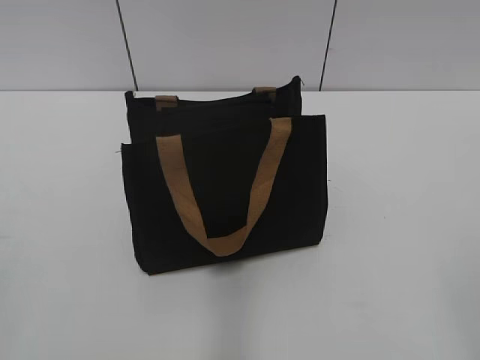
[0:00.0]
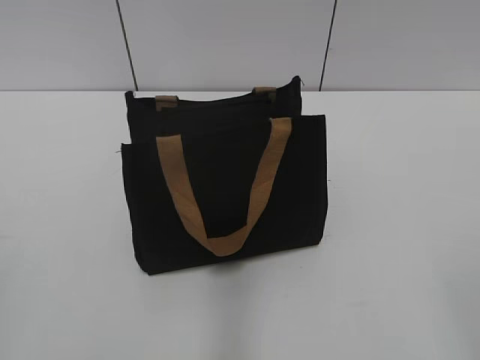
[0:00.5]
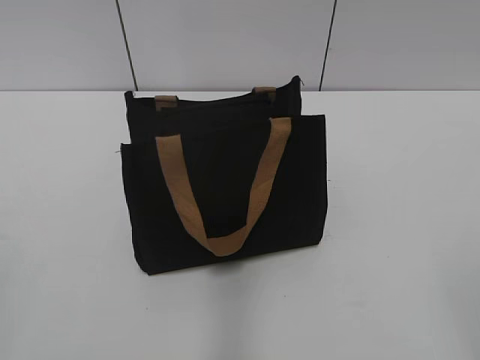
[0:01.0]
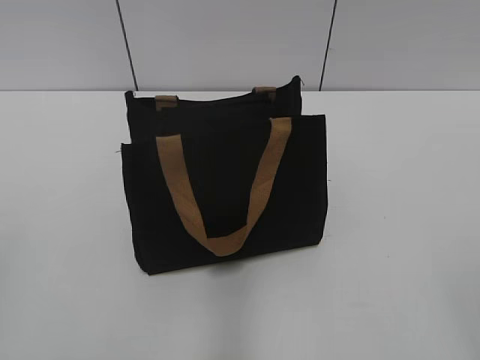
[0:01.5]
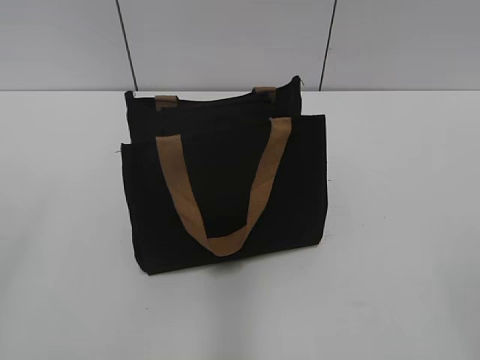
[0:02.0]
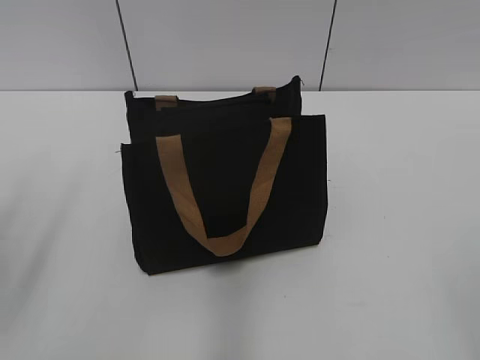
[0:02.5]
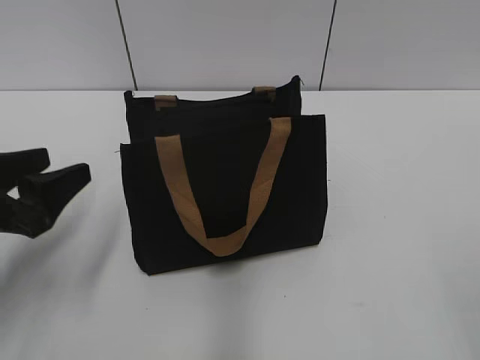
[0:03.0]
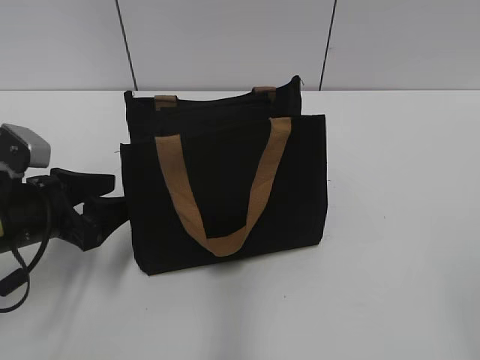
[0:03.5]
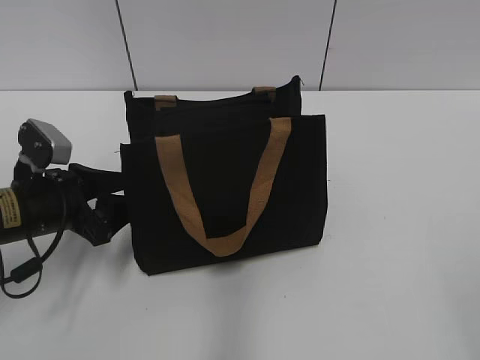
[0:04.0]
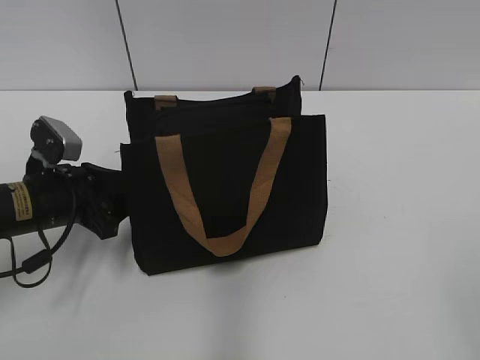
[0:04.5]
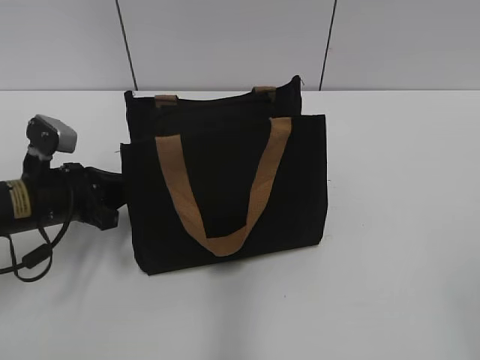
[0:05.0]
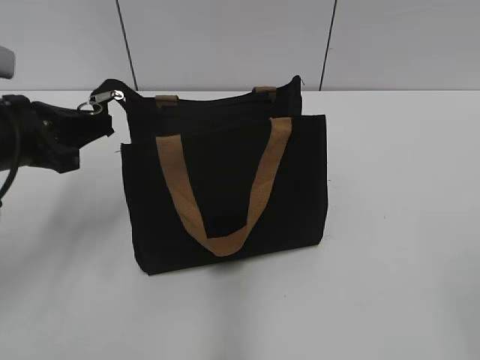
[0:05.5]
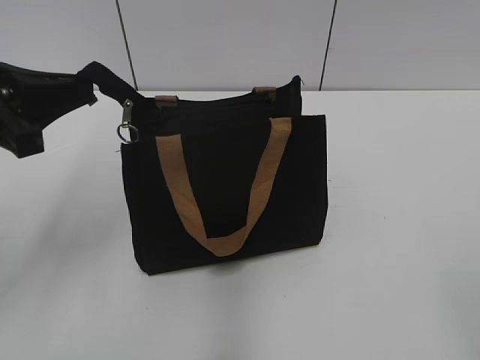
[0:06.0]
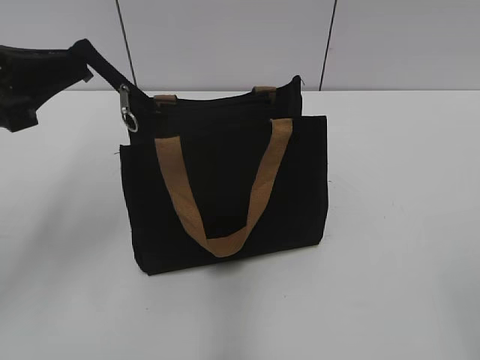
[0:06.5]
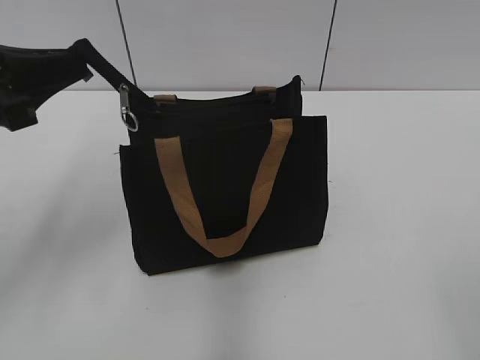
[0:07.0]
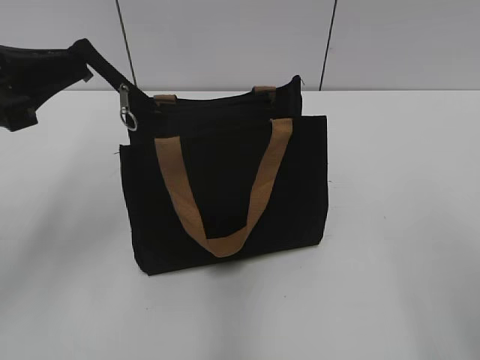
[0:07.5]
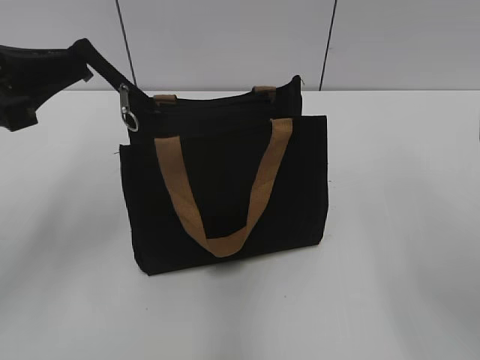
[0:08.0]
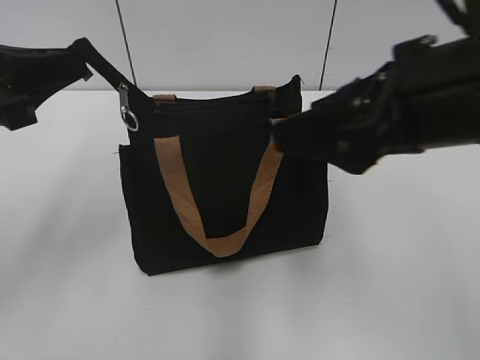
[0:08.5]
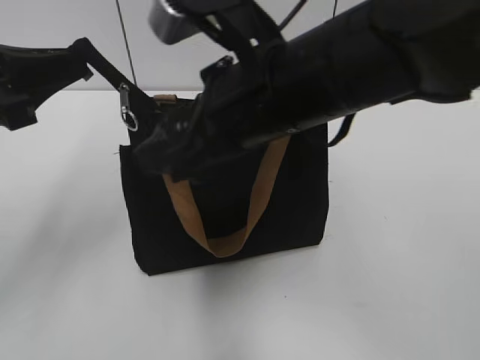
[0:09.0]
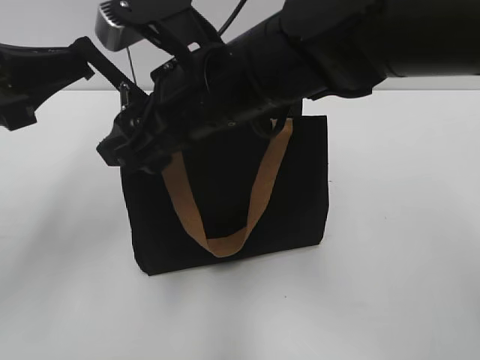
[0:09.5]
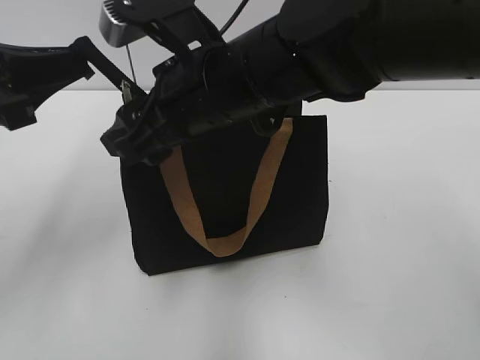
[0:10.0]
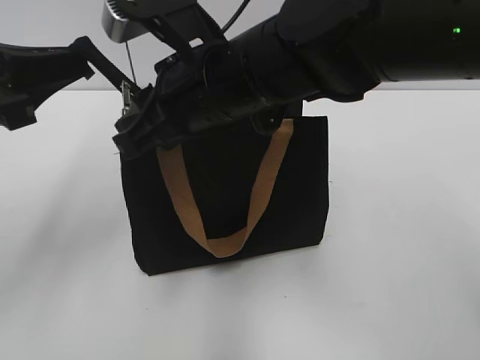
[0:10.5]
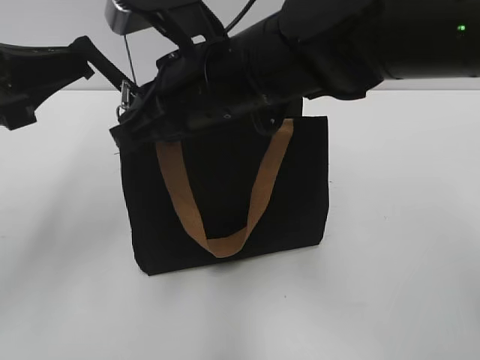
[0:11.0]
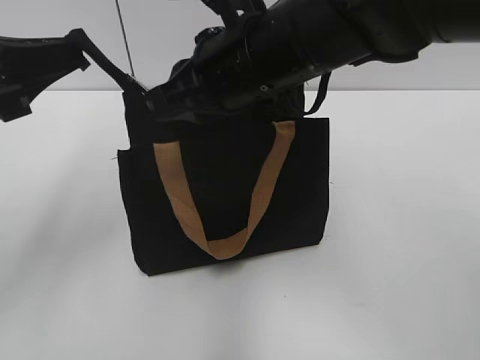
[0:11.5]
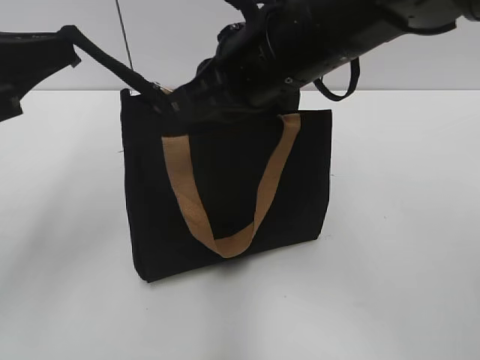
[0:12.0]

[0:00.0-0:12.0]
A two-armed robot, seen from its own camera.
0:02.0 to 0:04.0: The left gripper travels forward and downward by about 35 cm.
0:04.0 to 0:06.0: The left gripper travels upward by about 15 cm, and closes its fingers.
0:08.0 to 0:10.0: The right gripper heads to the left and forward, covering roughly 30 cm.
0:10.0 to 0:12.0: The right gripper changes place by roughly 5 cm, and closes up.

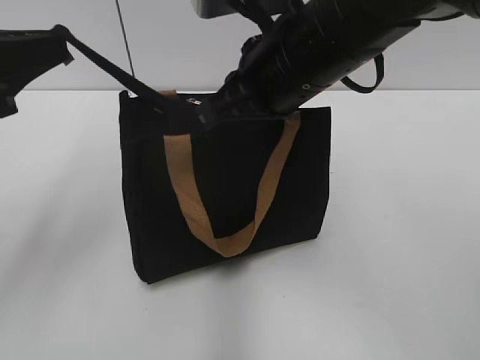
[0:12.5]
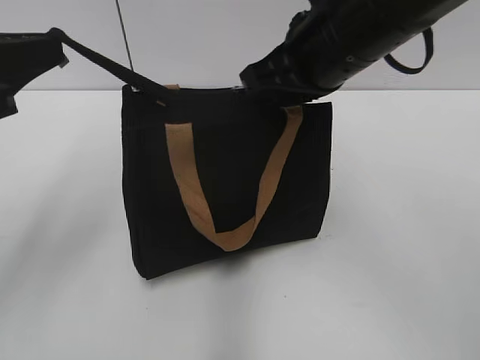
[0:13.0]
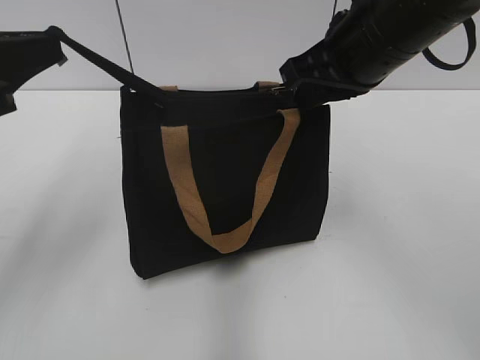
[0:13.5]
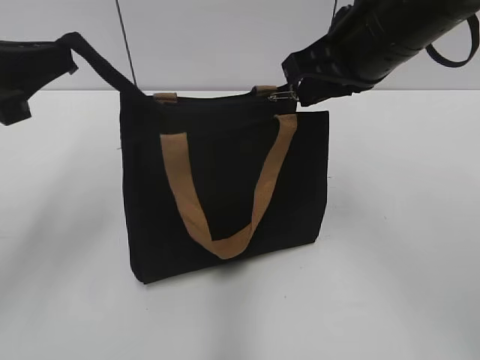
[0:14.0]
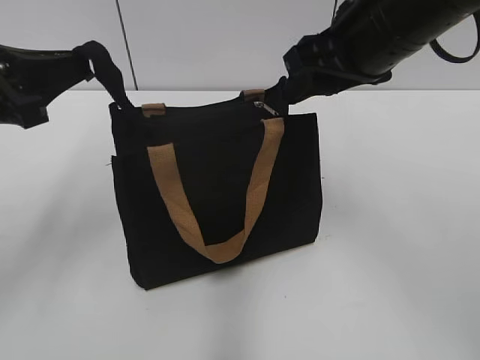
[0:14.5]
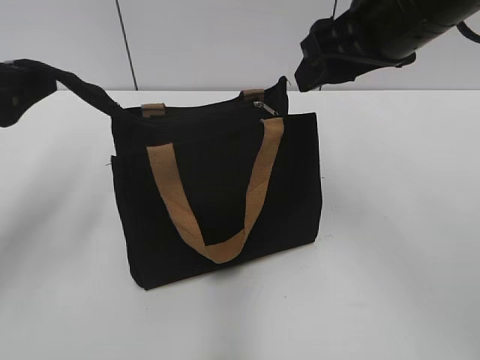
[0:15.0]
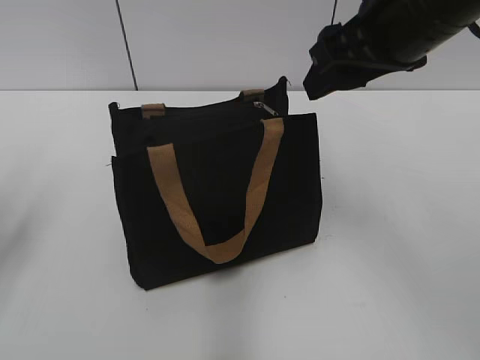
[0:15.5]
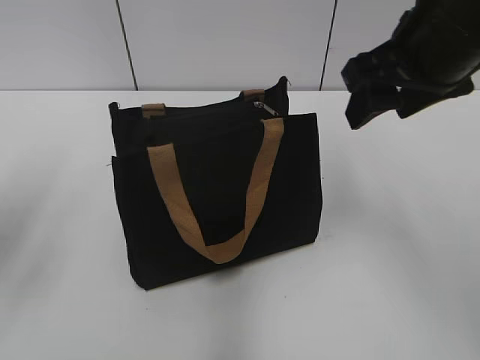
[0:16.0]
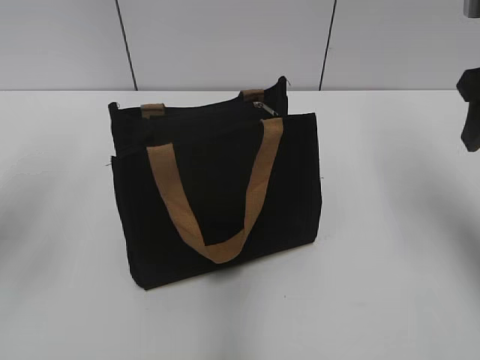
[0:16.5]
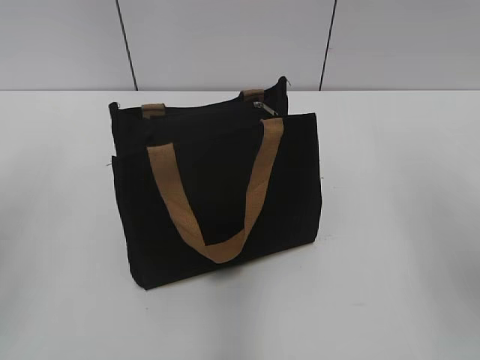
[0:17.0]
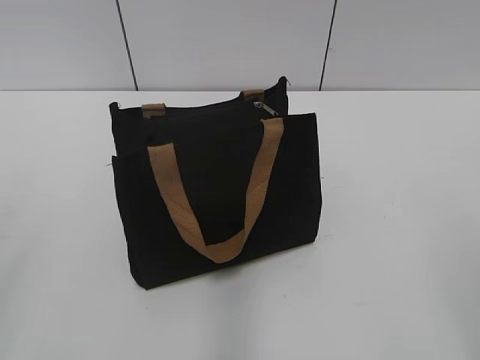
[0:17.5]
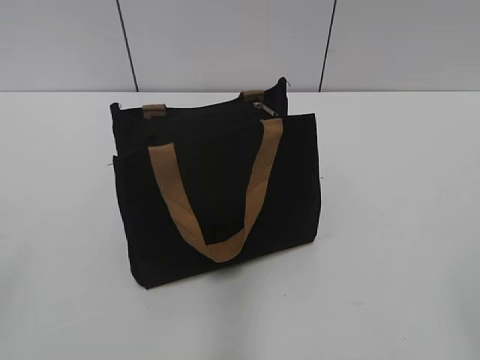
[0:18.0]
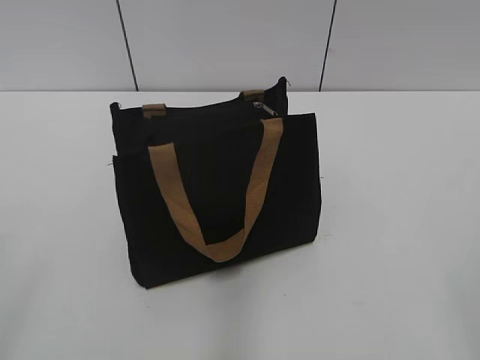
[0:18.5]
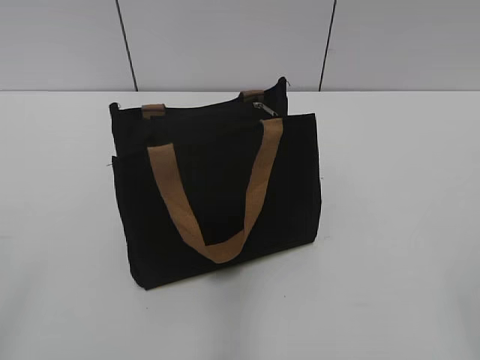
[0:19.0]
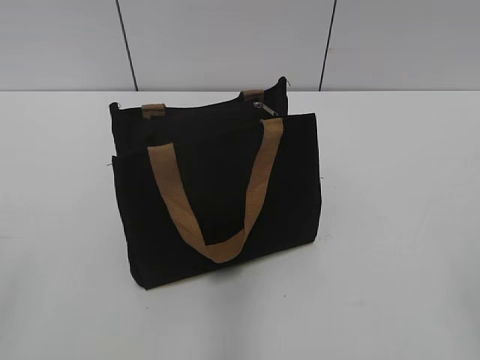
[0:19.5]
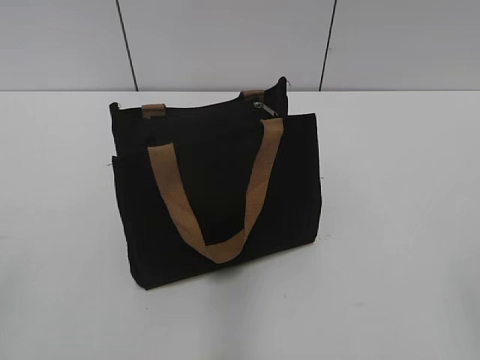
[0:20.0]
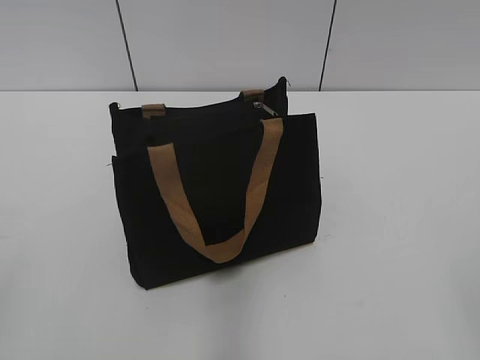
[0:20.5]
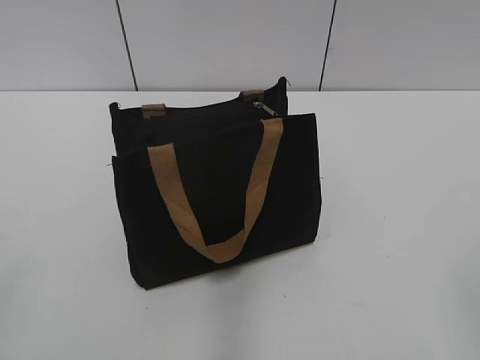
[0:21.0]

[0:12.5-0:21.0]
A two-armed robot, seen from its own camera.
Step, 0:14.5 to 0:15.0: Grab the zipper with your left hand.
0:12.5 to 0:14.5: The right gripper moves to the right, approximately 5 cm, and opens.
0:14.5 to 0:16.5: The right gripper goes some 10 cm to the right; the left gripper ends up about 5 cm from where it was, and opens.
0:16.5 to 0:19.0: The two grippers go roughly 25 cm backward.

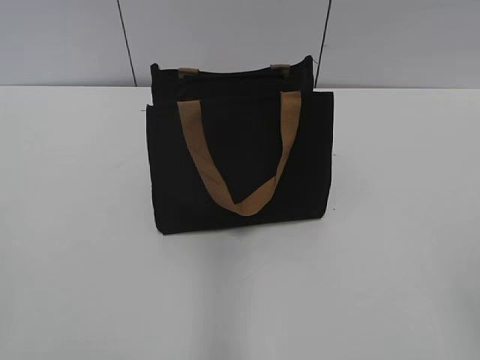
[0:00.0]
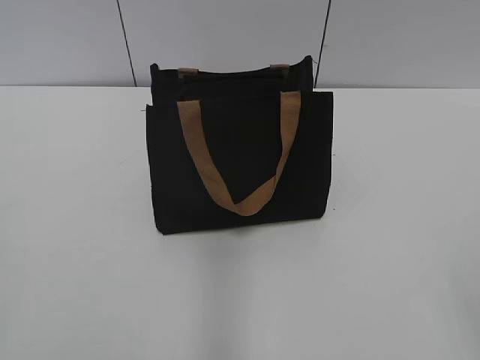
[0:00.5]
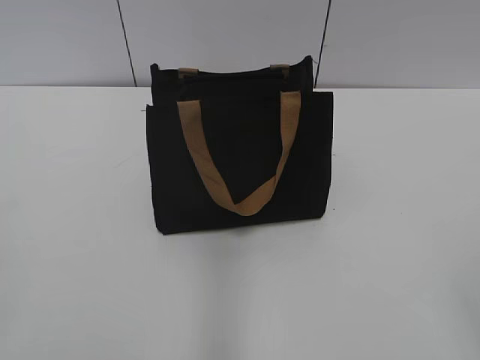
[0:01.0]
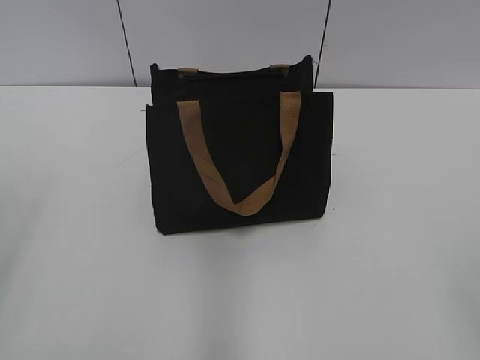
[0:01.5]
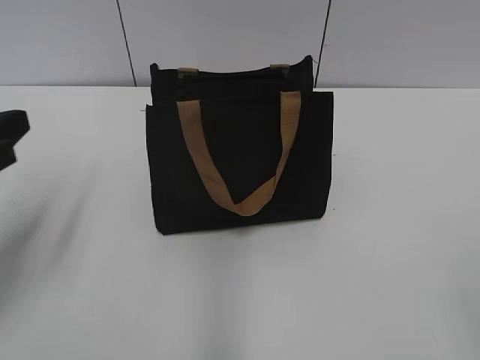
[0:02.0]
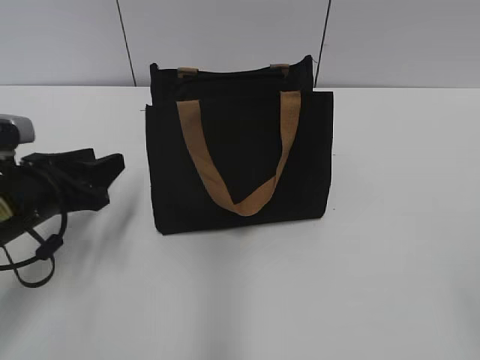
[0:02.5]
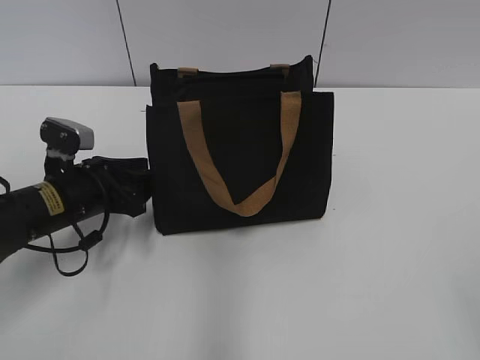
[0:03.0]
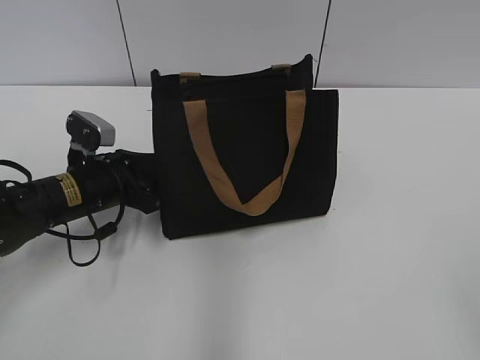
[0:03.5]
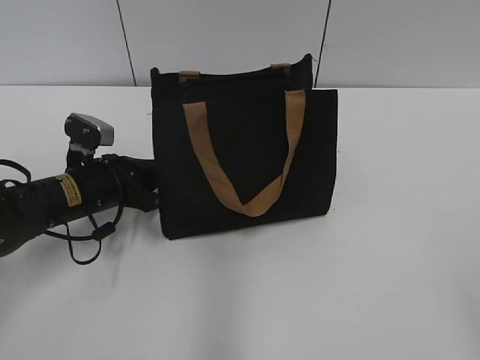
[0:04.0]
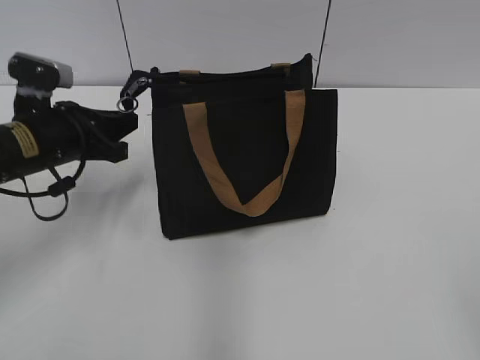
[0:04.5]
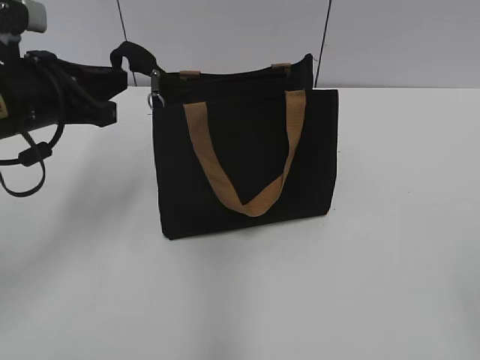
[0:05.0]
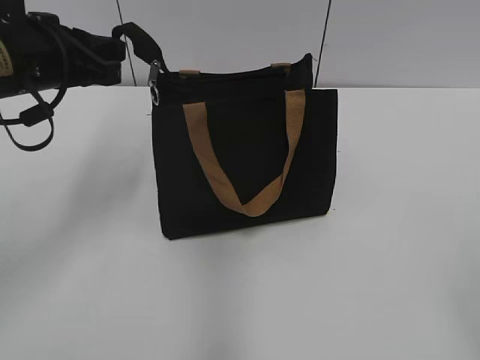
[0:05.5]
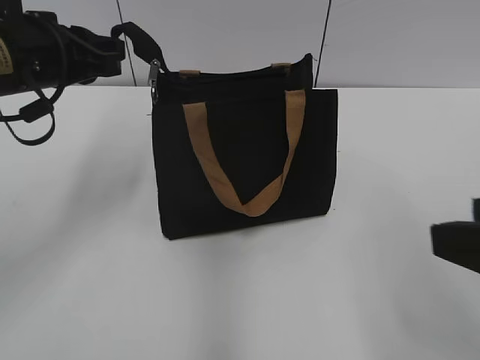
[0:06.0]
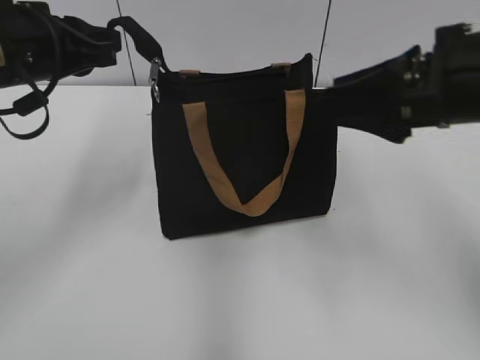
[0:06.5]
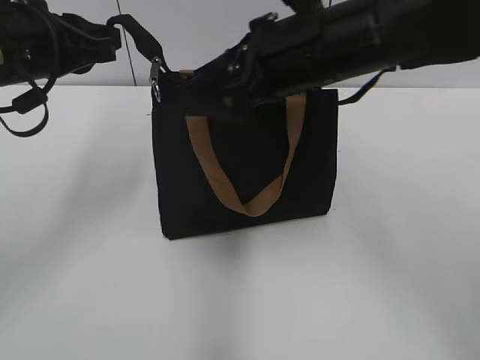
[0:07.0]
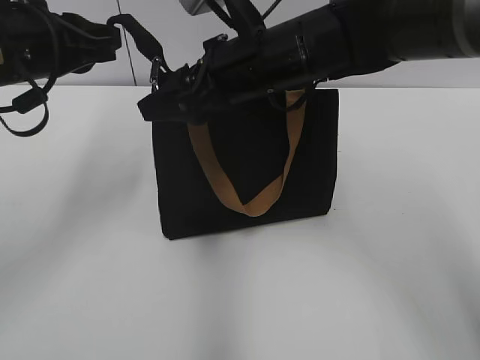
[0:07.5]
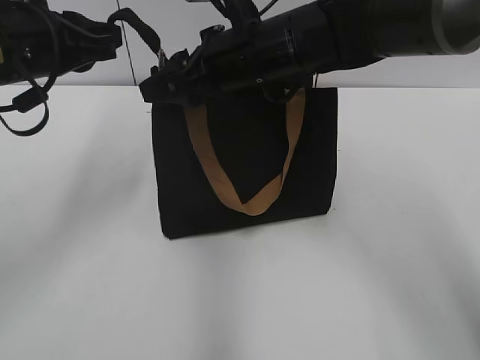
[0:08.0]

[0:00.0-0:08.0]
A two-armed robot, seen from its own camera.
0:02.0 to 0:04.0: The left gripper heads downward, forward and to the right, covering approximately 25 cm, and closes.
0:04.0 to 0:06.0: The right gripper shifts approximately 10 cm forward; the left gripper is displaced upward by some 20 cm.
0:06.0 to 0:08.0: The right gripper goes approximately 35 cm forward and to the left.
